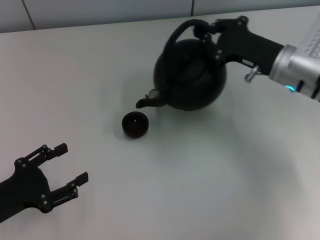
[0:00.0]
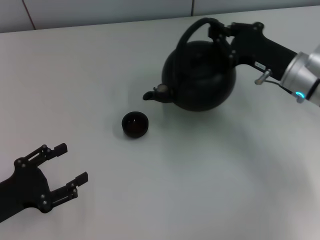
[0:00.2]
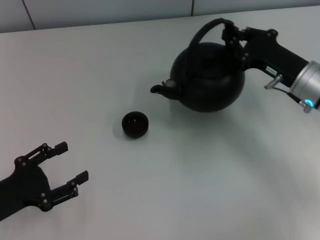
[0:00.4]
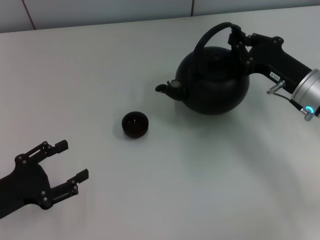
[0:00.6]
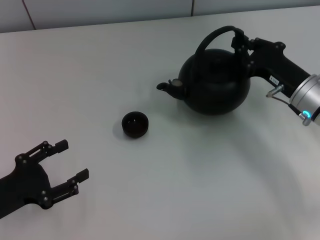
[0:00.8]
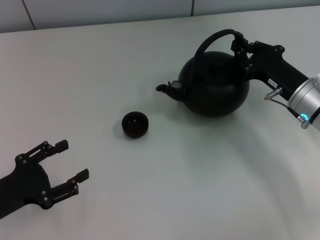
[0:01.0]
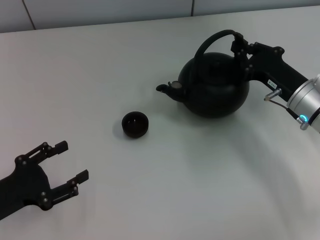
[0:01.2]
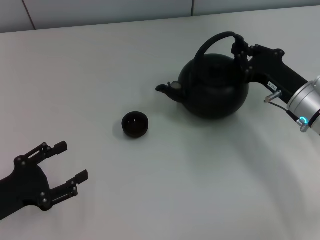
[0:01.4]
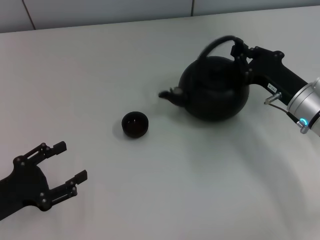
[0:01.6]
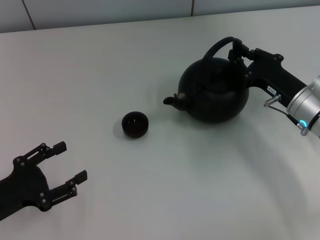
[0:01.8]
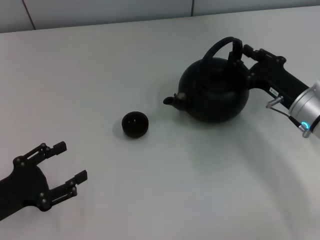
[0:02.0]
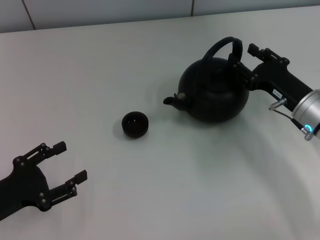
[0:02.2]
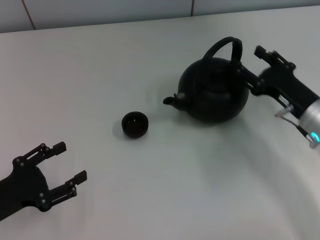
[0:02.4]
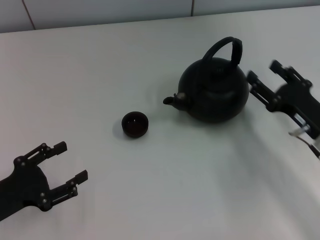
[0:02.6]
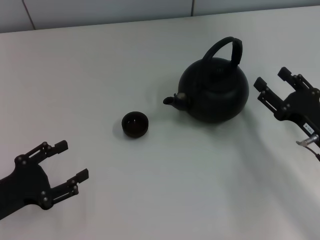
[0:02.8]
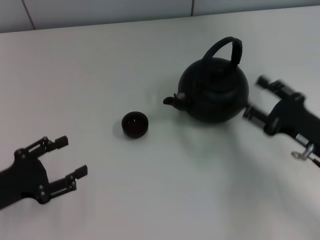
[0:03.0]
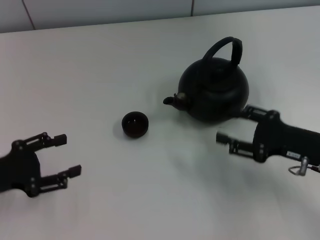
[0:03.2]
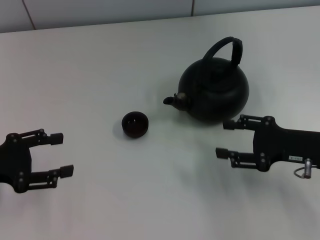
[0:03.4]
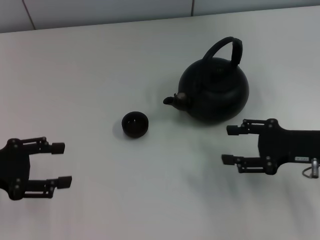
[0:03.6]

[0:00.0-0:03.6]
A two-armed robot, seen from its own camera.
Task of the whole recording: Grasp the handle of the teapot with one hand and pour tea into the teacup.
Step, 0:00.2 to 0:02.6: Put down the teapot with the right gripper.
0:00.0 to 0:01.8: The right gripper shifts about 5 cm downward.
0:01.8 to 0:03.6: The right gripper shifts some 5 cm backward, and opens, while the left gripper heads upward and forward, covering about 10 cm.
